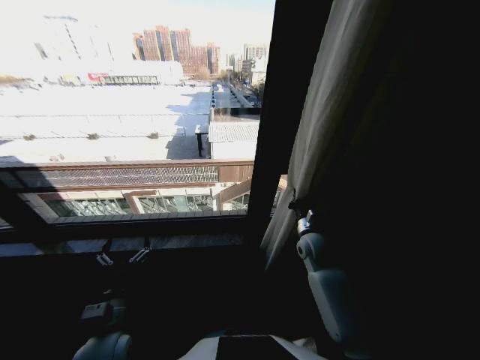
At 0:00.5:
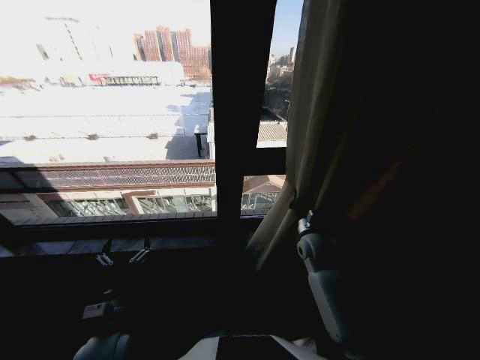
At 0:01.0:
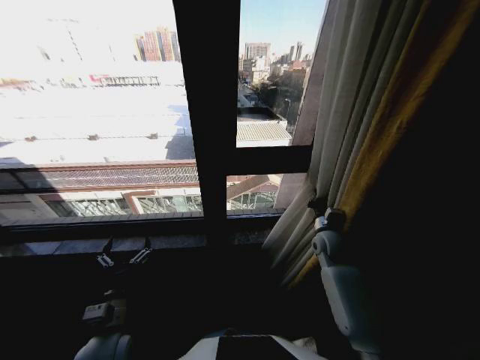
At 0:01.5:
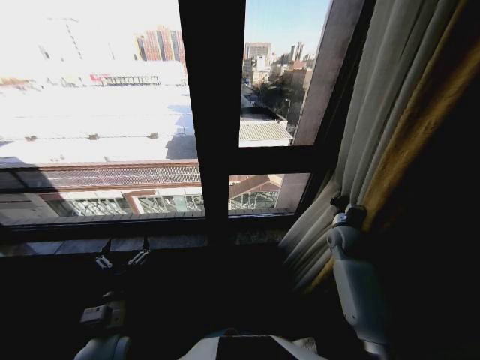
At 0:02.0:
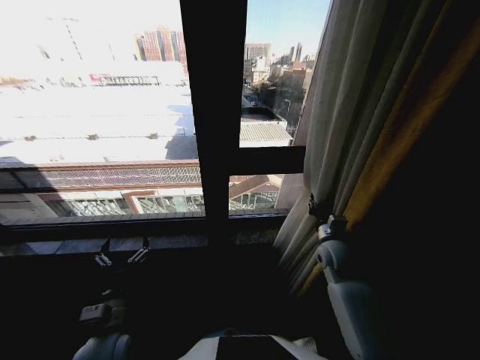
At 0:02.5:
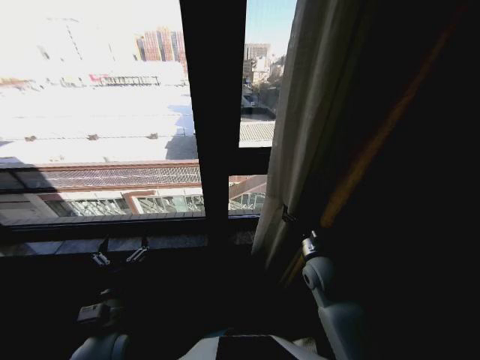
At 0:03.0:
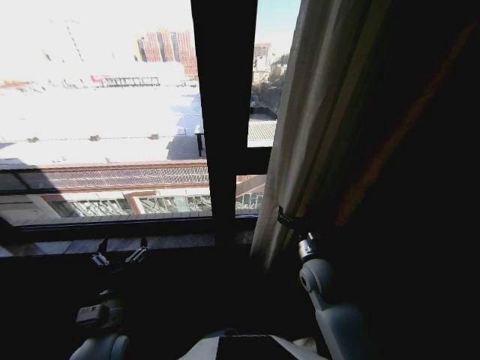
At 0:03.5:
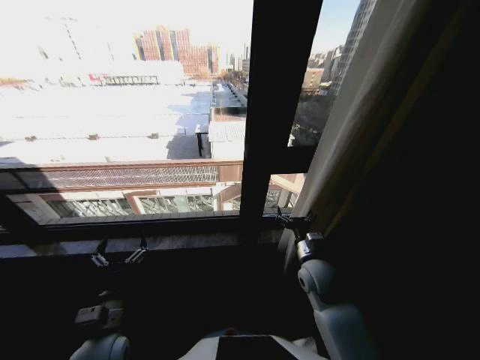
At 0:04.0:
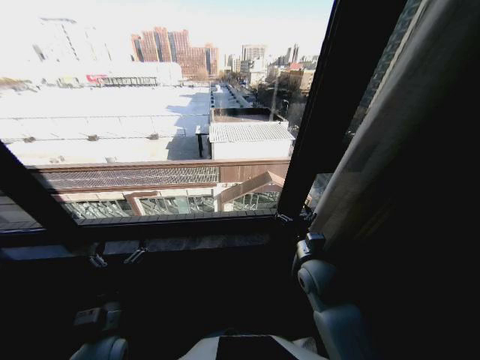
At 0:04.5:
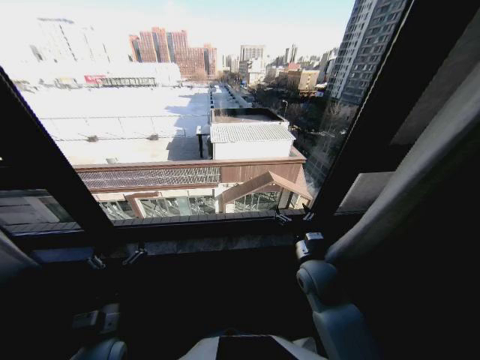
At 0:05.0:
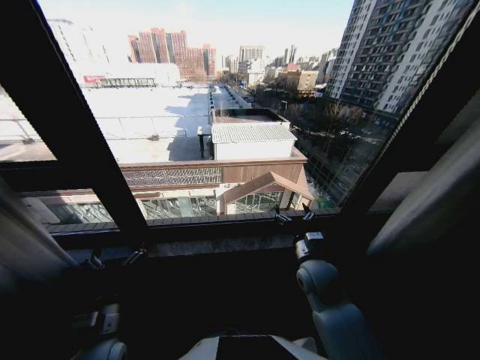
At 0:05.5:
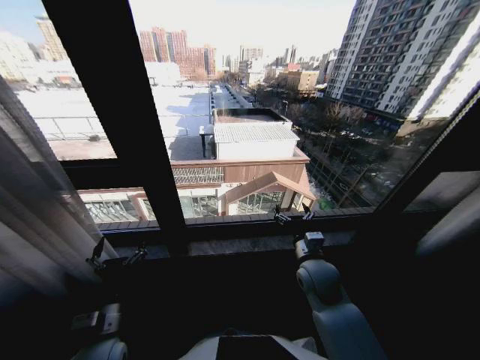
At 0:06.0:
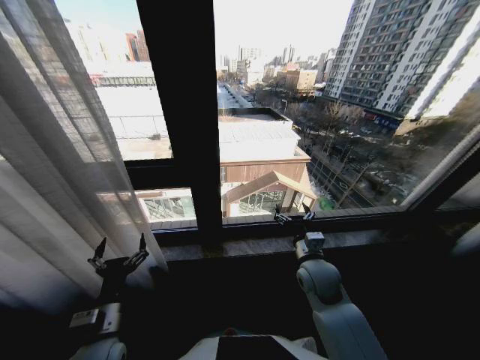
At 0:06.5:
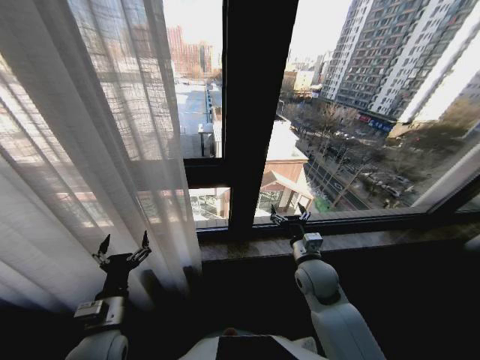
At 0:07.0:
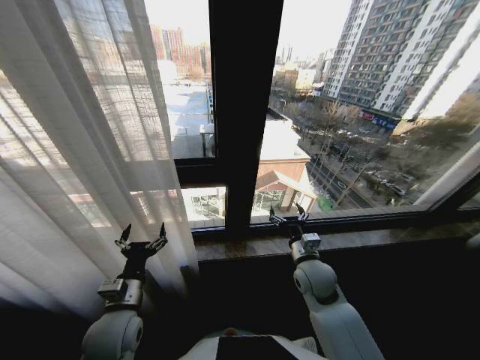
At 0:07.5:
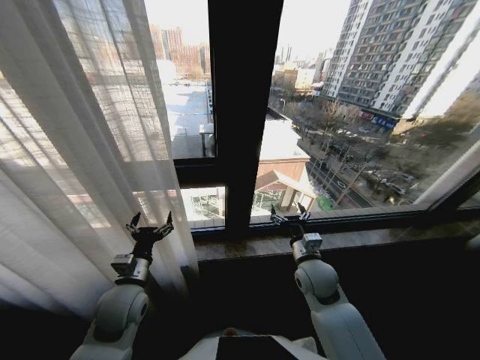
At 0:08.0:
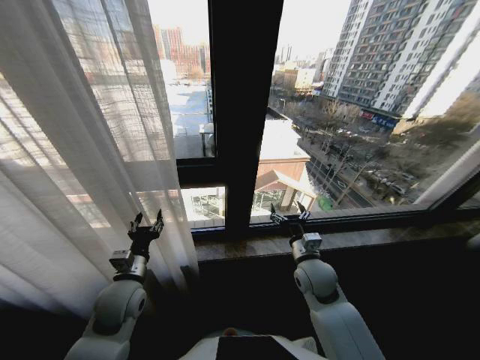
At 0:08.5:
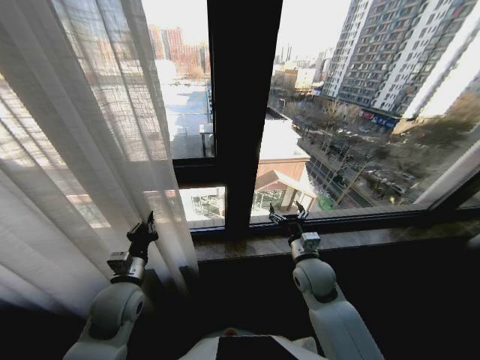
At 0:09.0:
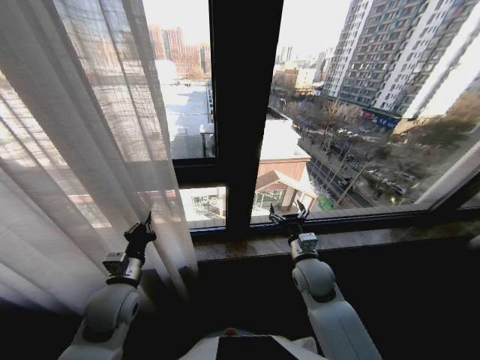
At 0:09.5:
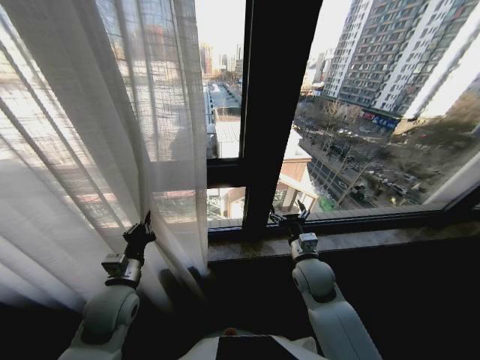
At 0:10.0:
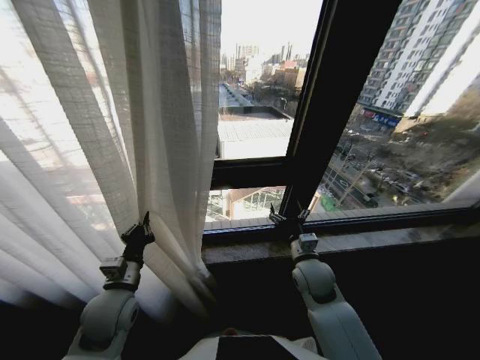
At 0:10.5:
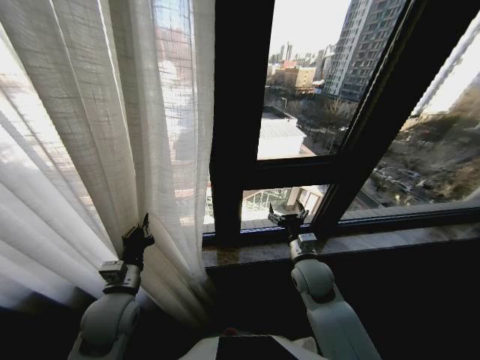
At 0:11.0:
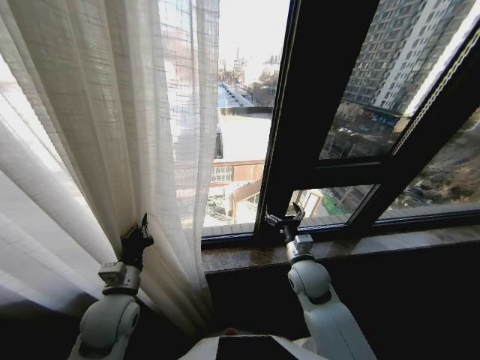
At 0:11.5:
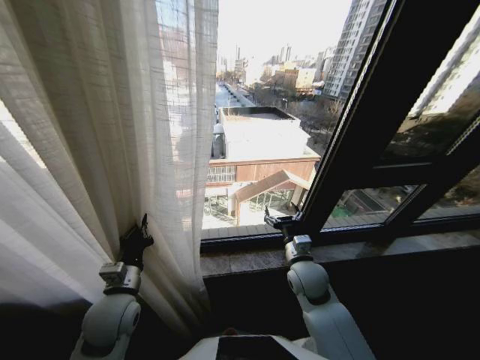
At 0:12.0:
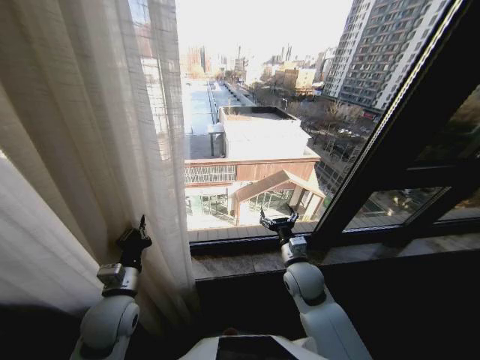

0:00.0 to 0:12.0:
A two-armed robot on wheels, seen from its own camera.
Task of the whole recording: Open the curtains by pulling them apart, changing their state from closed to fully open.
0:00.0 to 0:02.0: The right gripper goes some 5 cm to the right.
0:02.0 to 0:04.0: The right gripper goes approximately 10 cm to the left and backward, and opens.
0:06.0 to 0:08.0: The left gripper shifts about 10 cm forward, and closes.
0:08.0 to 0:10.0: The left gripper closes.

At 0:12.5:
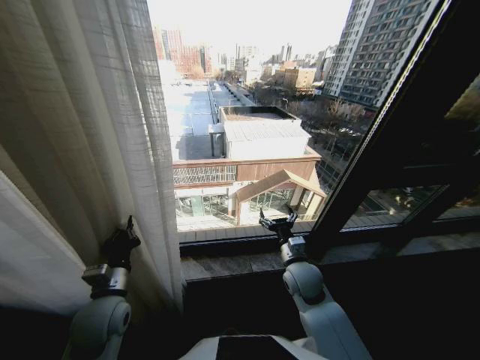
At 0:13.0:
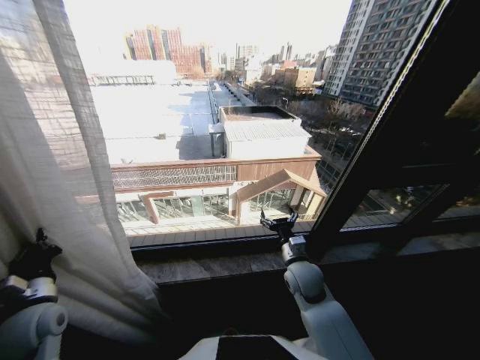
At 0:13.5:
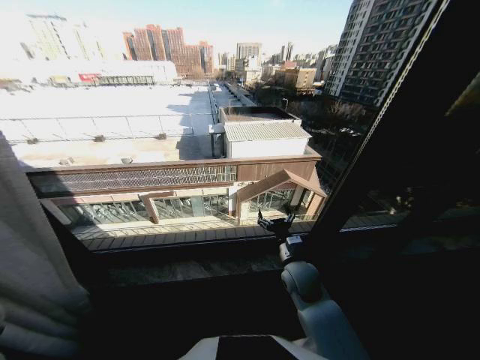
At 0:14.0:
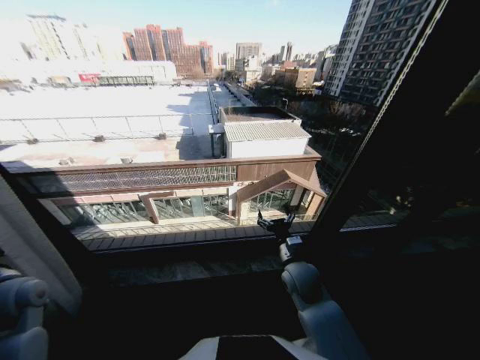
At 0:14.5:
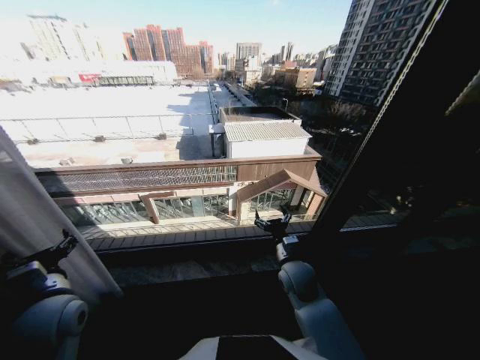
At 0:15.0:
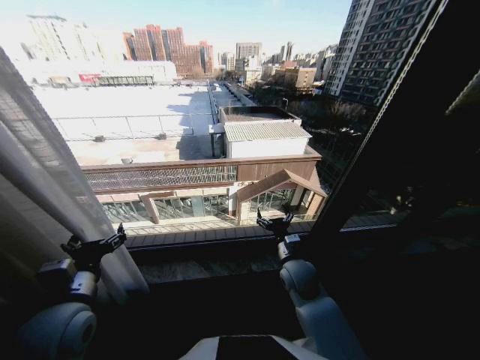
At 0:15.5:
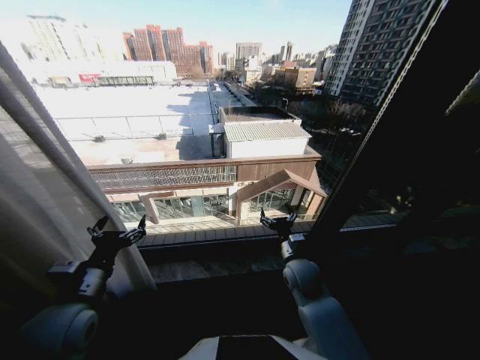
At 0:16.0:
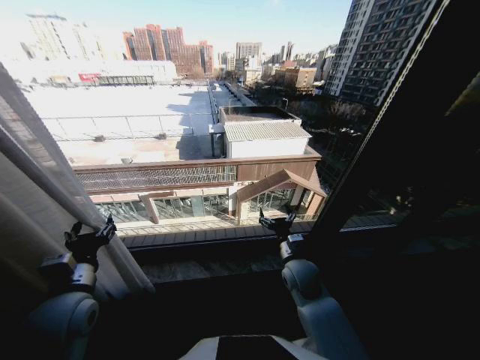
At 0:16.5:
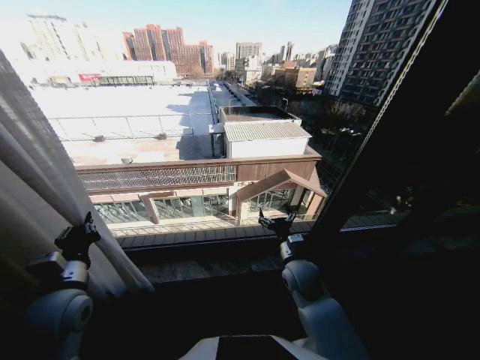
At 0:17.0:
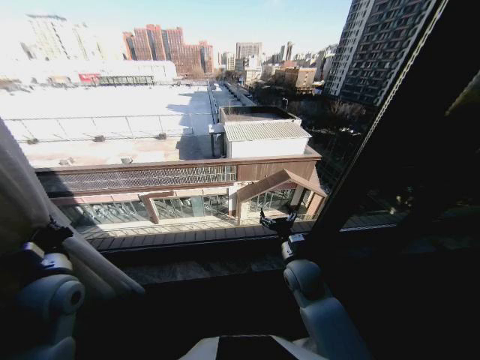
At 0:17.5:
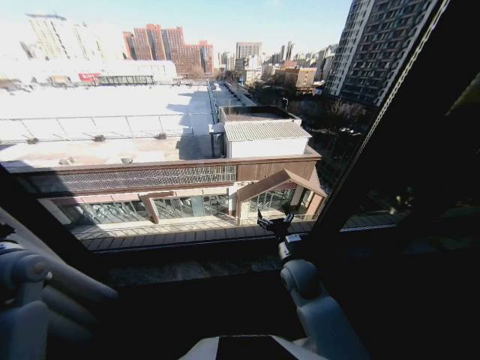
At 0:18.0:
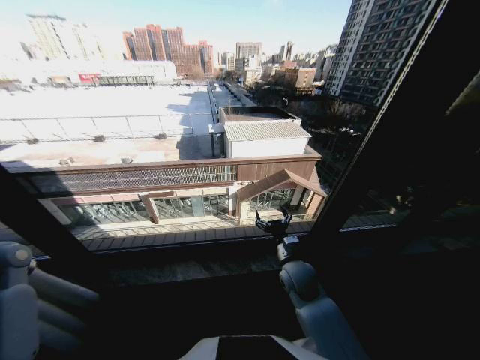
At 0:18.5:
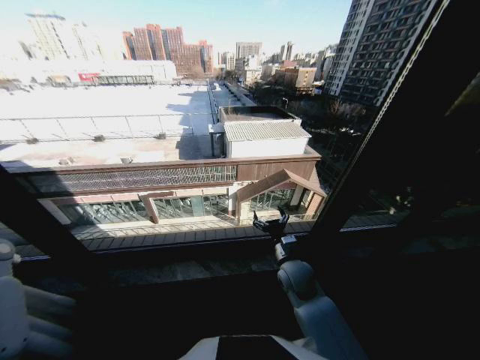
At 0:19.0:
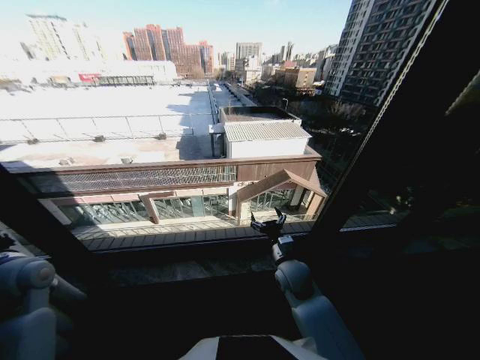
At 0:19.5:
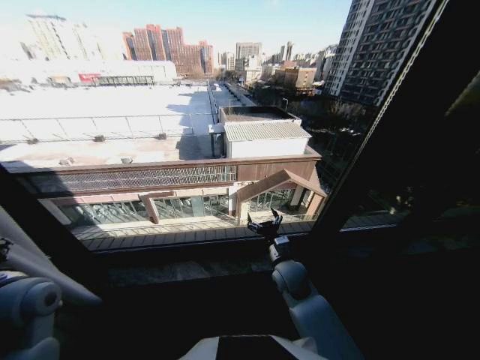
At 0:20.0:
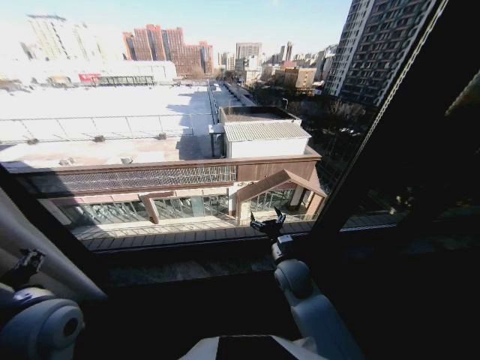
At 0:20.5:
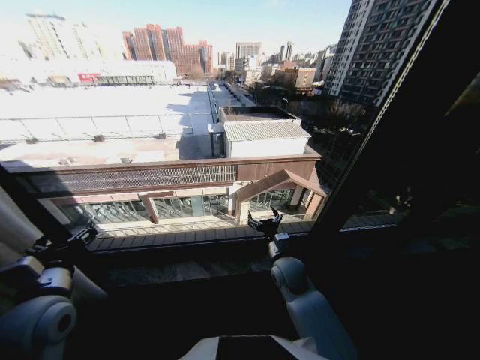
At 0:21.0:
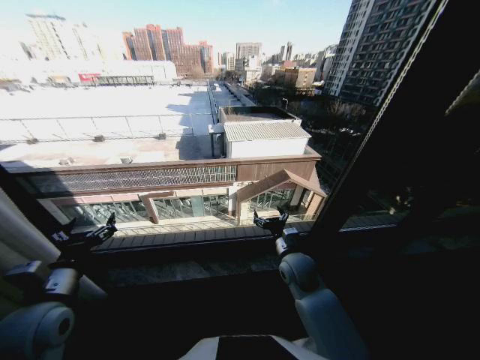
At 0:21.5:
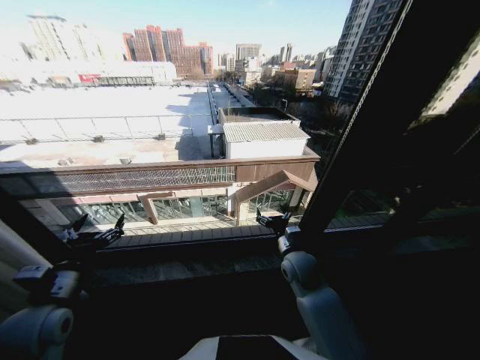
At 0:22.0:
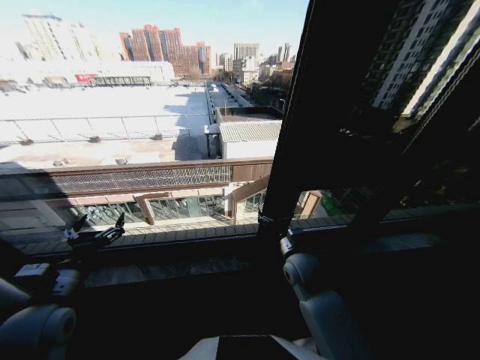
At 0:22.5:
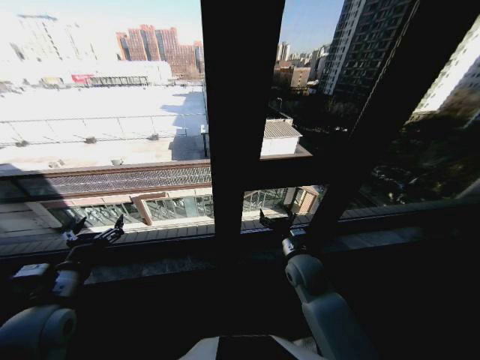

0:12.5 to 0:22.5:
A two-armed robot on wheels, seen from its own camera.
Task of the whole recording: Open the curtains by pulling them apart, changing their state from closed to fully open.
0:12.5 to 0:14.5: The left gripper travels upward by approximately 5 cm, goes to the left and returns, approximately 25 cm each way, and opens its fingers.
0:14.5 to 0:16.5: The left gripper closes up.
0:16.5 to 0:18.5: The left gripper shifts roughly 25 cm to the left and forward.
0:18.5 to 0:20.5: The left gripper moves to the right and backward, roughly 25 cm, and opens up.

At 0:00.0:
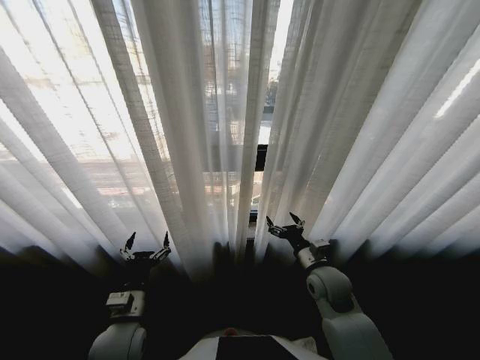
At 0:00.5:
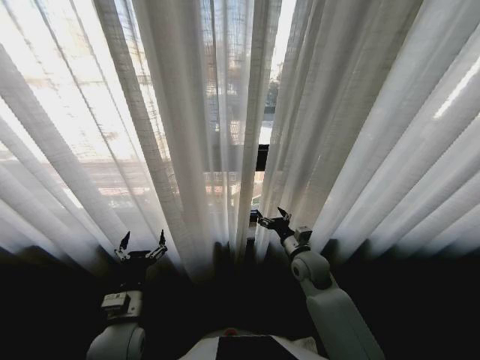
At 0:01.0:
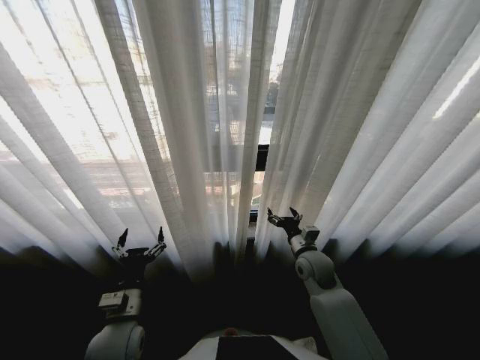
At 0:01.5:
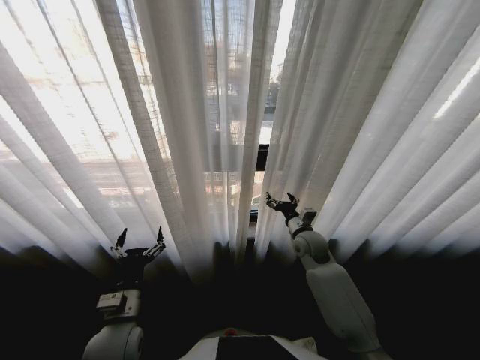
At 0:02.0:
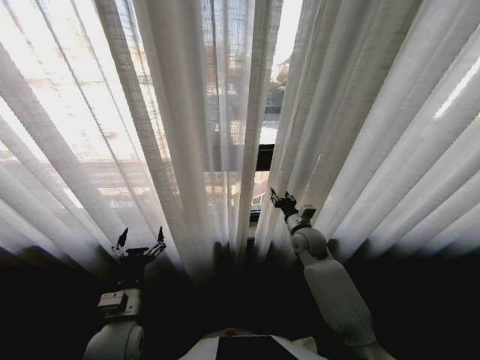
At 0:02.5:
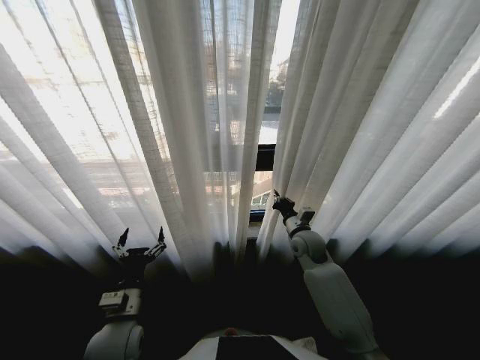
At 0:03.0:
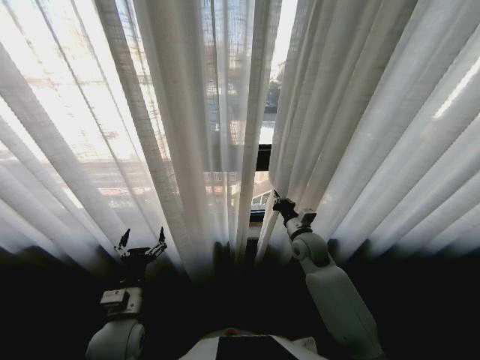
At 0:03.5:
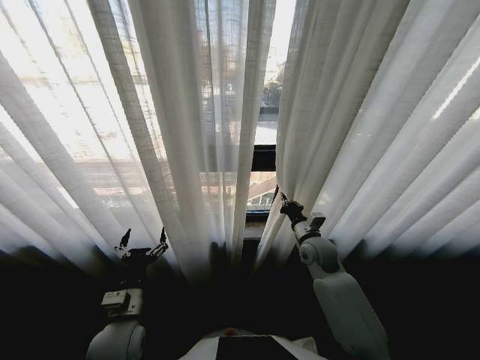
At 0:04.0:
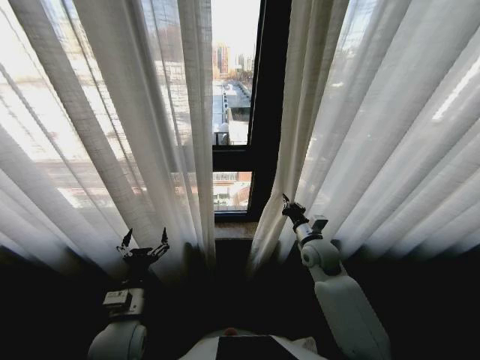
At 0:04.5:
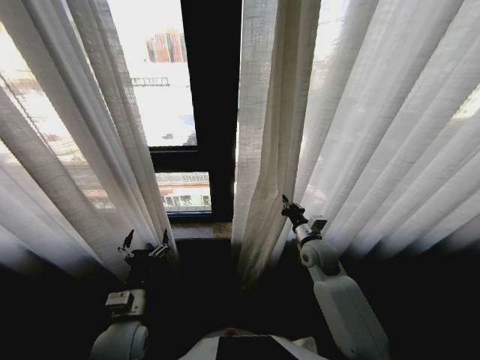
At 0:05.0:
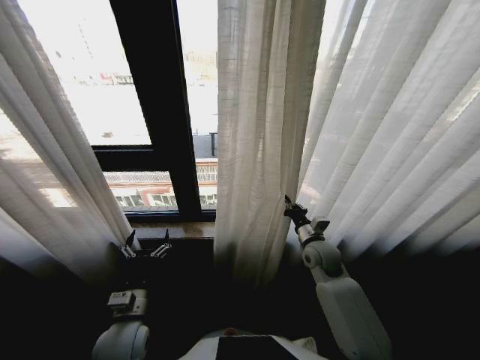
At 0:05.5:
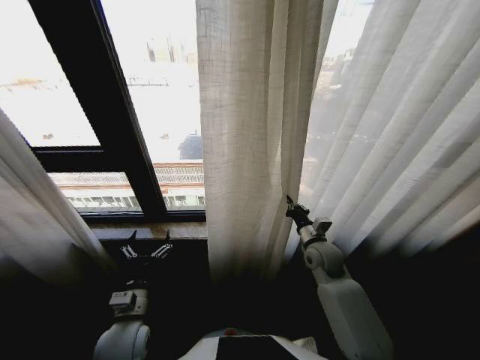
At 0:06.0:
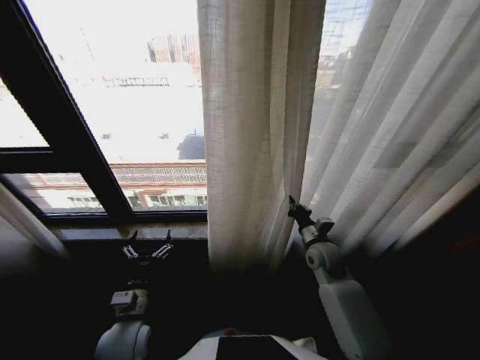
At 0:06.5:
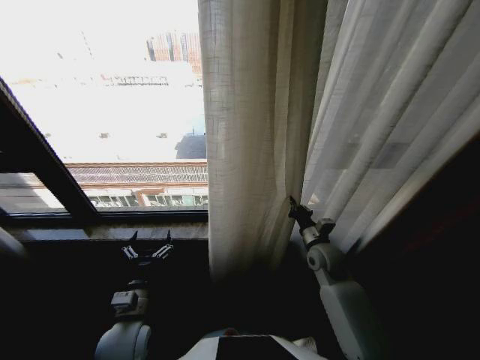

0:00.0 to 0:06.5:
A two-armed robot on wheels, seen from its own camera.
Task of the whole recording: Open the curtains by pulling them apart, changing their state from closed to fully open.
0:00.0 to 0:02.0: The right gripper heads forward, covering about 15 cm, and closes up.
0:02.0 to 0:04.5: The right gripper closes its fingers.
